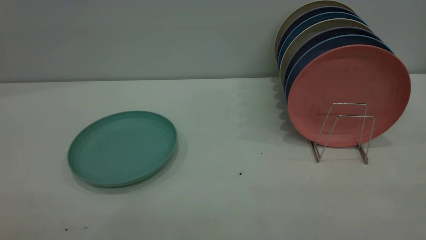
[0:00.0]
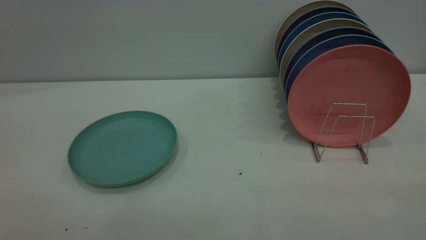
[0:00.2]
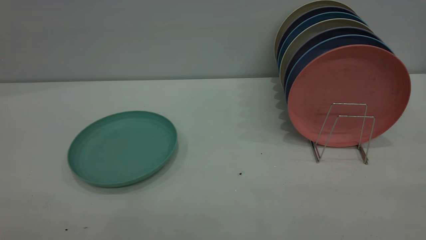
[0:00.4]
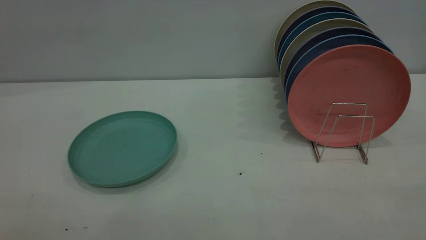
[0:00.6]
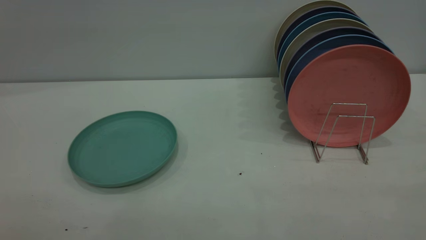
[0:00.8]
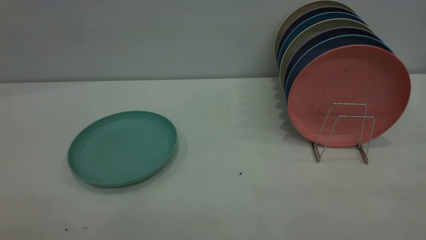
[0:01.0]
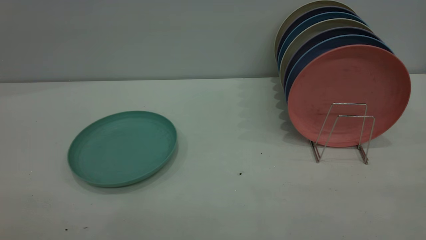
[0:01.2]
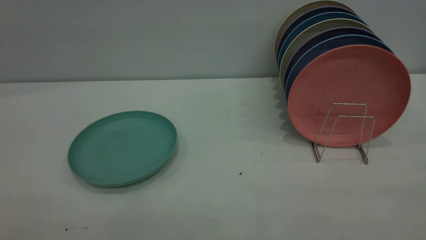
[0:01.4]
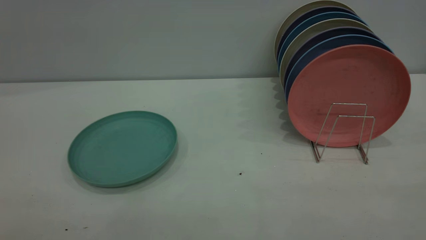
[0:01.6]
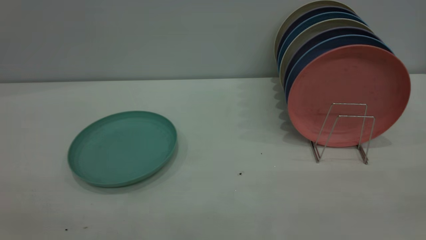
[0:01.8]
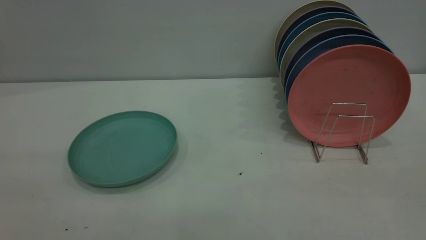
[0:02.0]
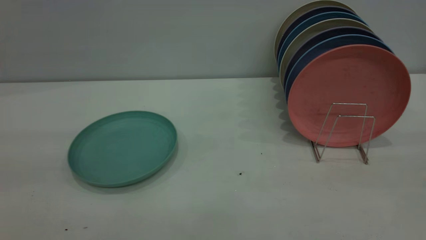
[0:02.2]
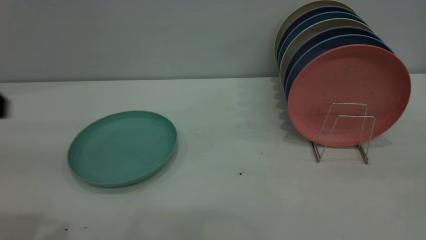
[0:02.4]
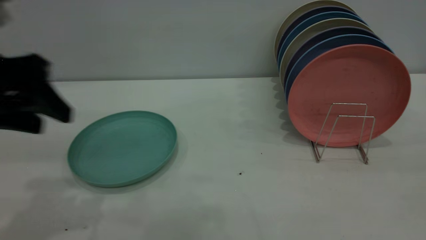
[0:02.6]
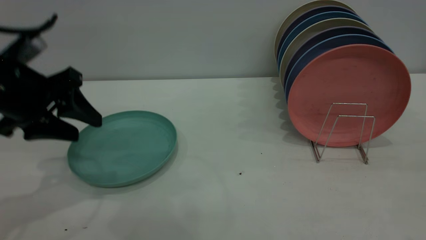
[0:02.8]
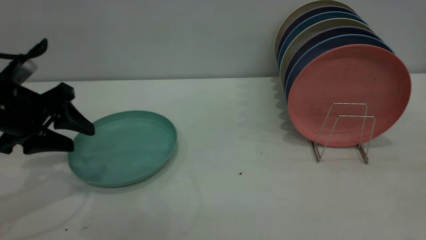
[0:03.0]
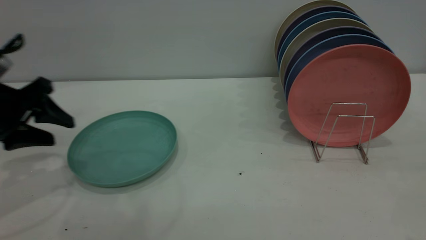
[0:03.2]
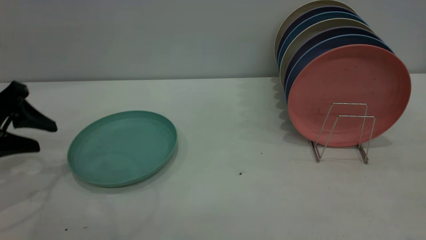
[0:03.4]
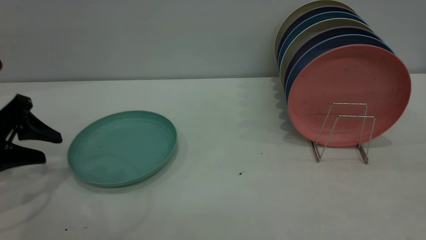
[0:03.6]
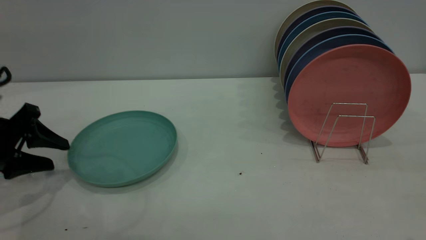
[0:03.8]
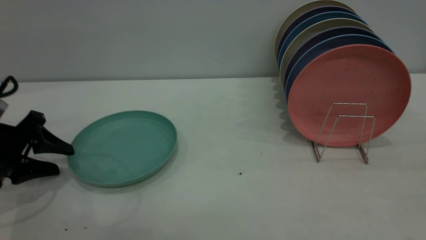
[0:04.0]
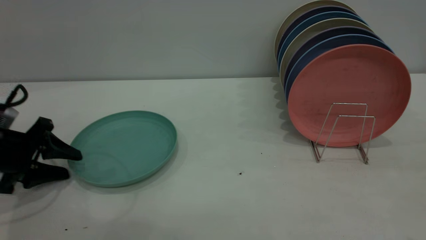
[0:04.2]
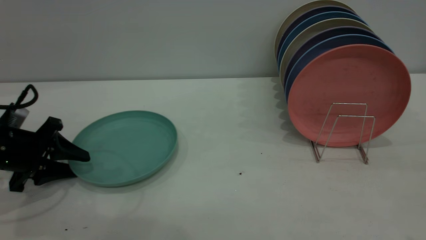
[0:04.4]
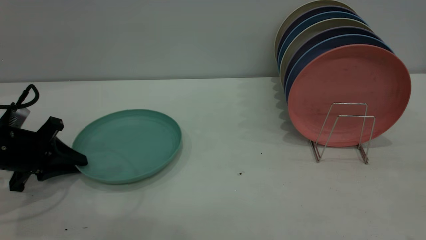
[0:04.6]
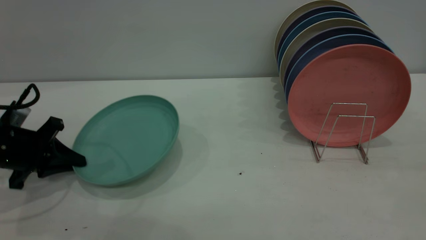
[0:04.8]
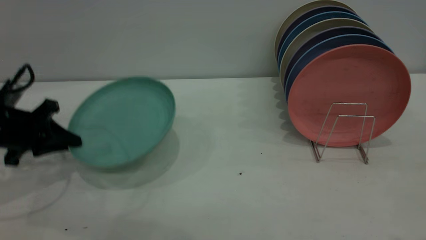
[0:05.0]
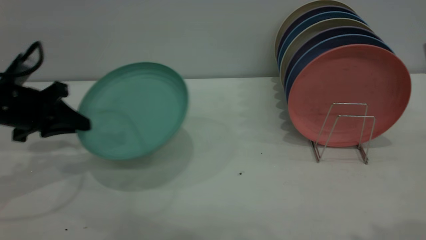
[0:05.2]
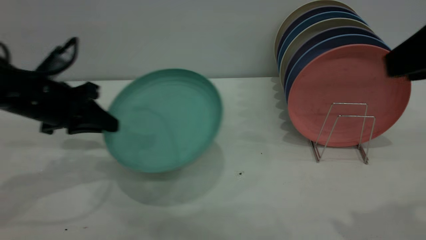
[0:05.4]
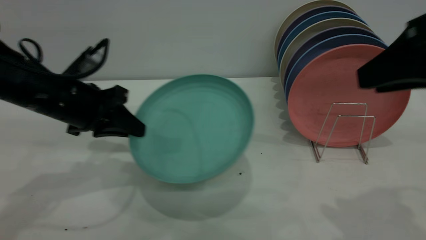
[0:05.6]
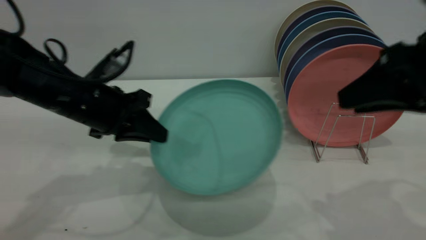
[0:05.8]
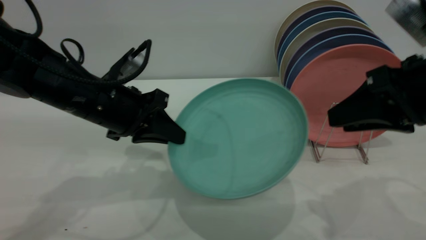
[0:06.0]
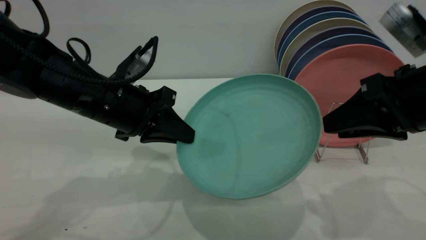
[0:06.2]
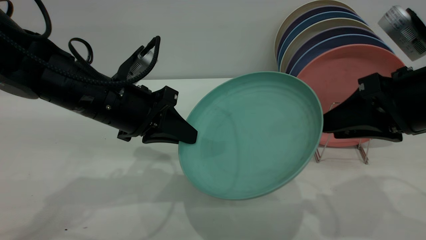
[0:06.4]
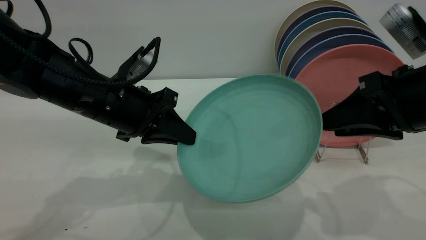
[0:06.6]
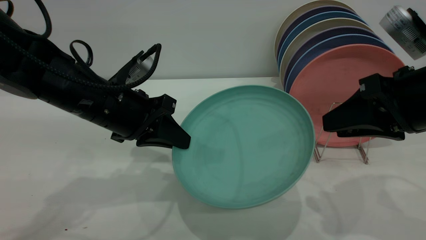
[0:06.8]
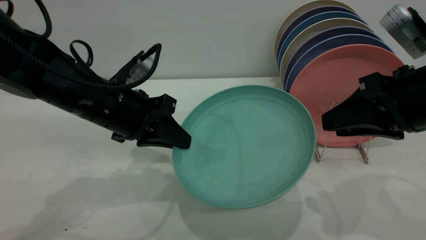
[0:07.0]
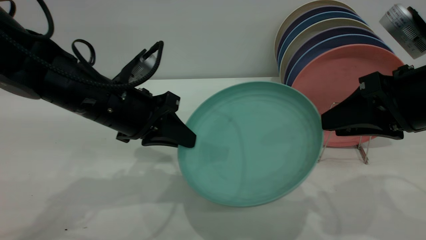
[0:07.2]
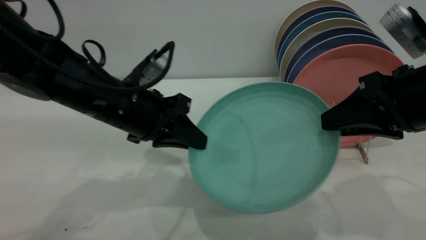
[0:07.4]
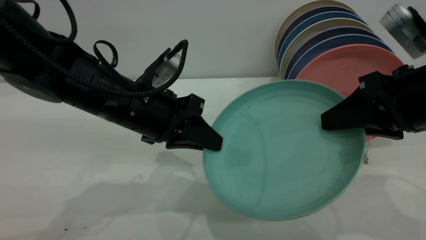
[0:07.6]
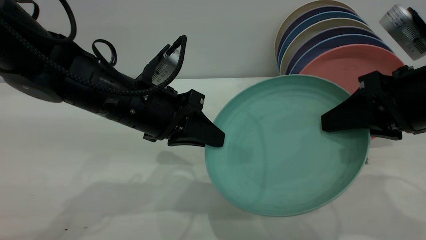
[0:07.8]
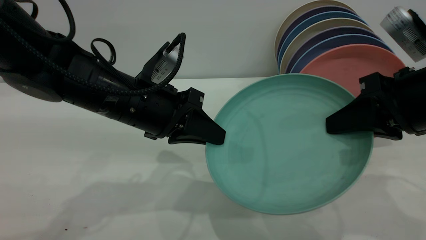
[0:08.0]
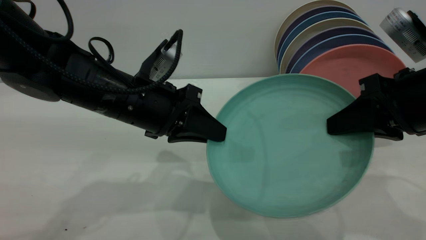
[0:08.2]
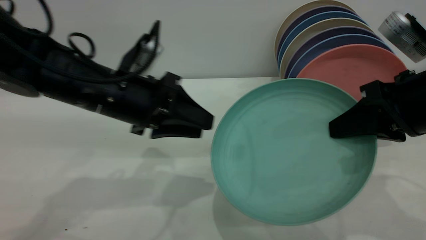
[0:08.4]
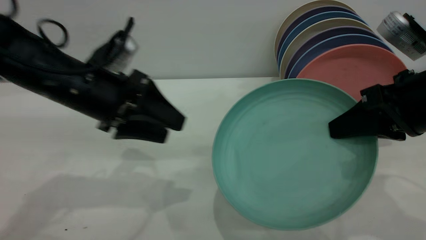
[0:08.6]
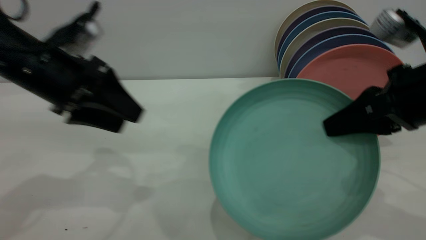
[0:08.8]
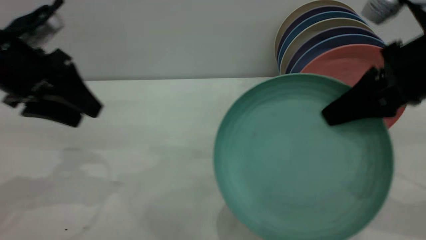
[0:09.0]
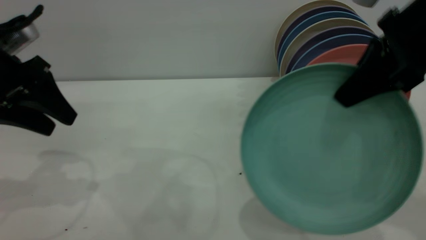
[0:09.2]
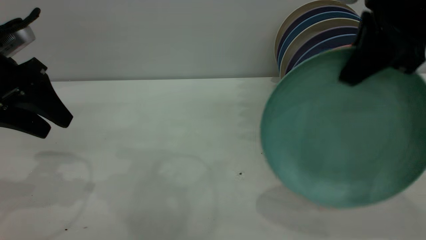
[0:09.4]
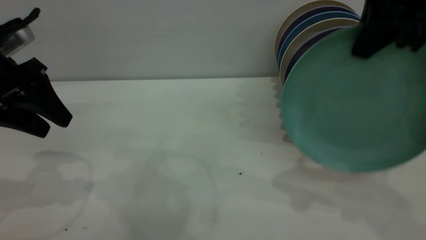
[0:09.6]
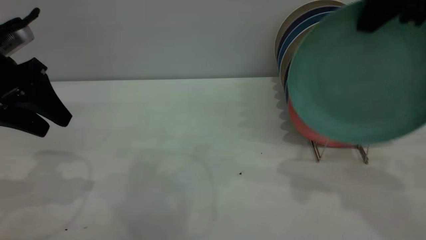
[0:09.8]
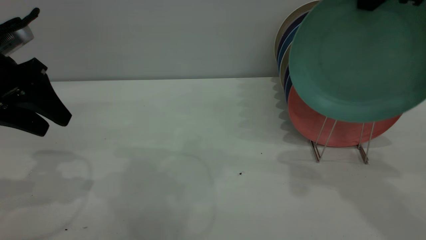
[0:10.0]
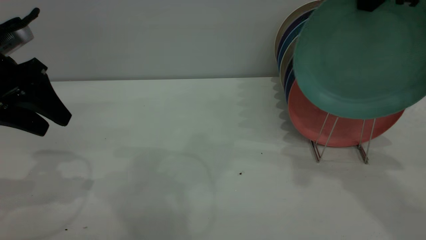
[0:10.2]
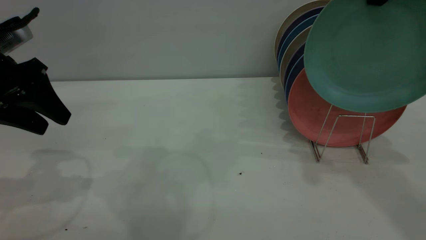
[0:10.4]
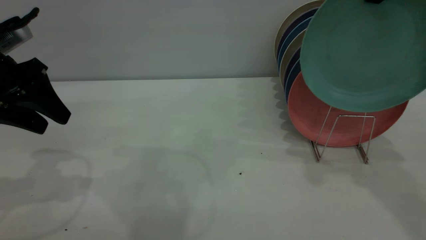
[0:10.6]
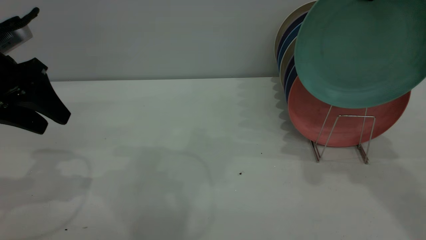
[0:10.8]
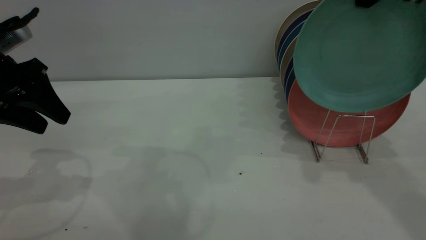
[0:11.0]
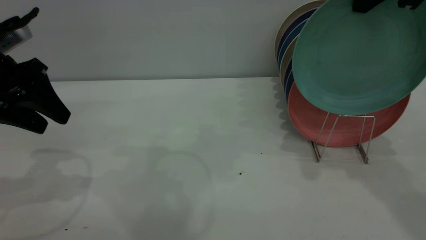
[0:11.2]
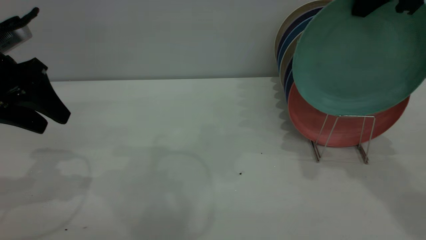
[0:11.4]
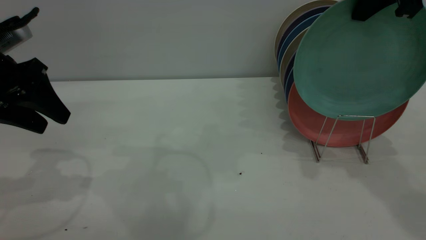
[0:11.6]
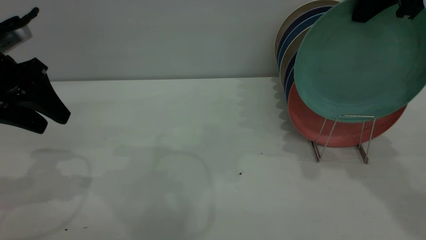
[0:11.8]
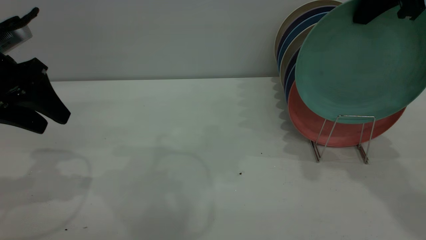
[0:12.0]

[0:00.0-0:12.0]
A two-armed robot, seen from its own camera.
Task of the whole recording: the left gripper grasp the green plate, the left gripper pass the green plate to the right gripper, and the right gripper place the green plate on the plate rack.
Step, 0:00.0 to 0:05.0: Pick up the plate with the left gripper.
Step, 0:05.2 to 0:08.4: Pass the plate from the left gripper to the right gripper.
0:00.0 to 0:01.6: Neither gripper changes place.
0:01.6 to 0:03.0: The left gripper heads forward and downward, covering roughly 40 cm.
0:03.0 to 0:04.4: The left gripper heads downward, covering some 10 cm.
0:04.4 to 0:06.0: The left gripper travels to the right and upward by some 20 cm, and closes its fingers; the right gripper is displaced downward and forward by about 20 cm.
0:06.0 to 0:07.6: The left gripper changes place by roughly 5 cm.
0:07.6 to 0:09.0: The left gripper travels to the left and upward by about 15 cm, and opens its fingers. Meanwhile the right gripper closes.
0:09.0 to 0:10.4: The right gripper shifts roughly 15 cm upward and forward.
0:10.4 to 0:12.0: The grippers move only a little.

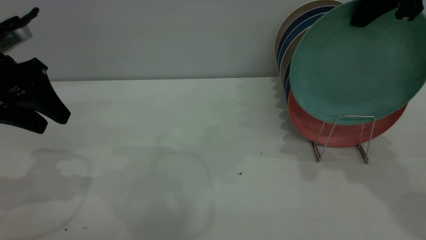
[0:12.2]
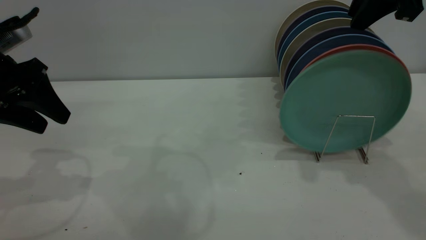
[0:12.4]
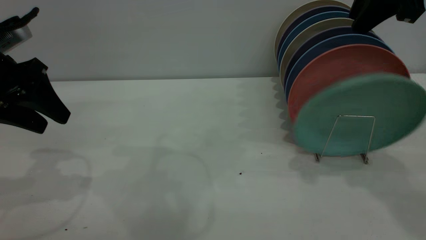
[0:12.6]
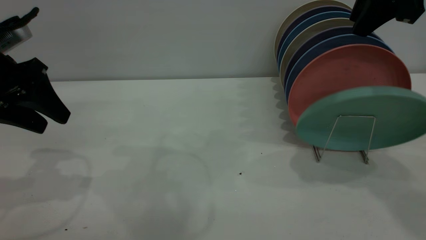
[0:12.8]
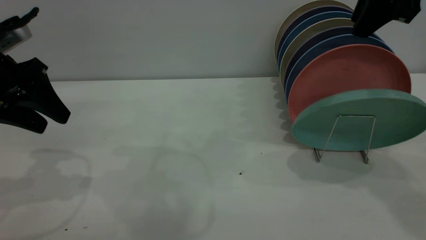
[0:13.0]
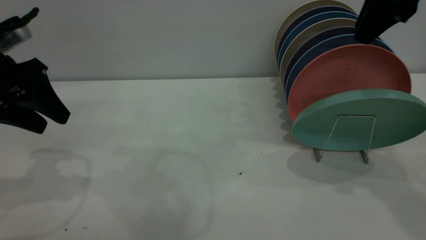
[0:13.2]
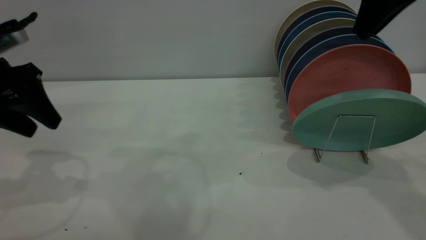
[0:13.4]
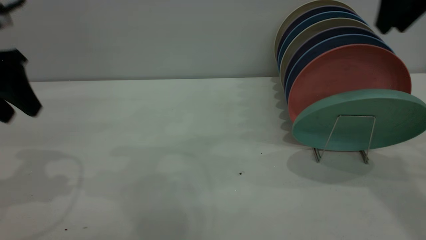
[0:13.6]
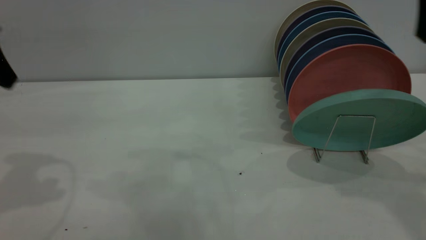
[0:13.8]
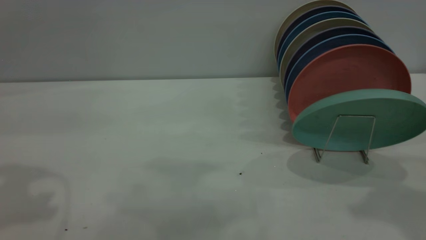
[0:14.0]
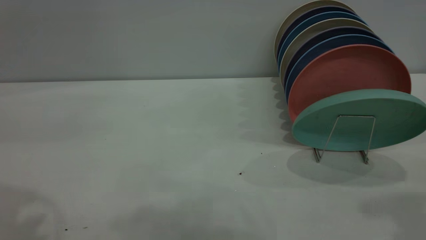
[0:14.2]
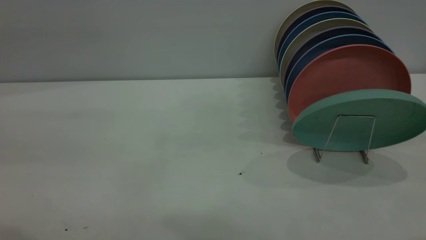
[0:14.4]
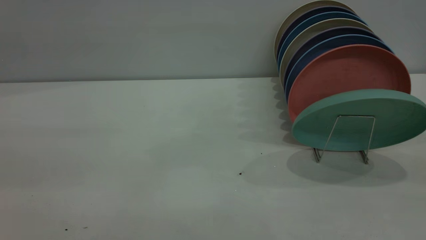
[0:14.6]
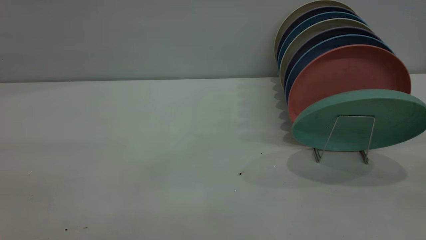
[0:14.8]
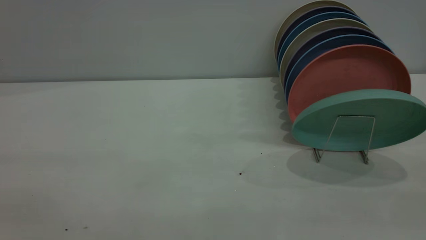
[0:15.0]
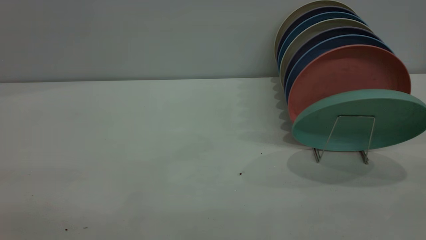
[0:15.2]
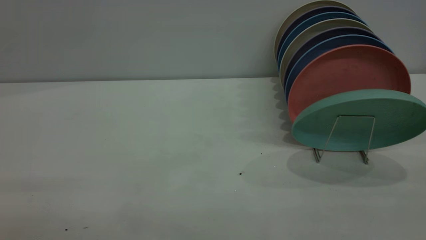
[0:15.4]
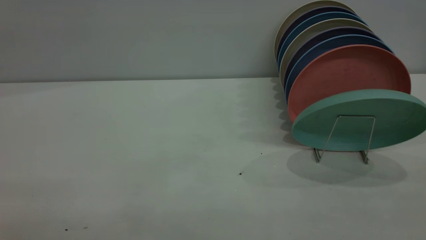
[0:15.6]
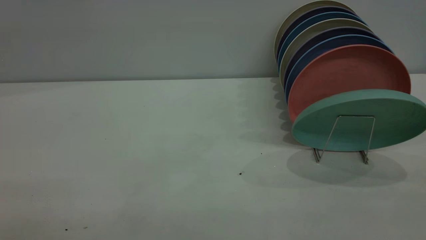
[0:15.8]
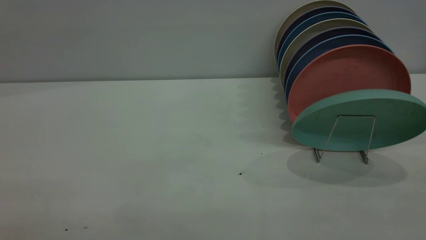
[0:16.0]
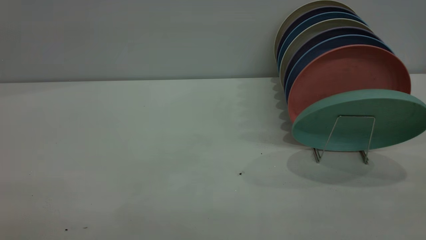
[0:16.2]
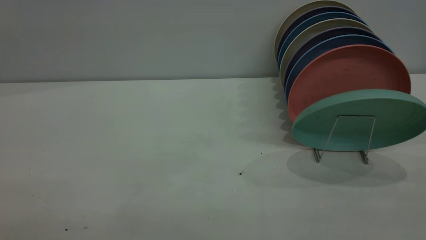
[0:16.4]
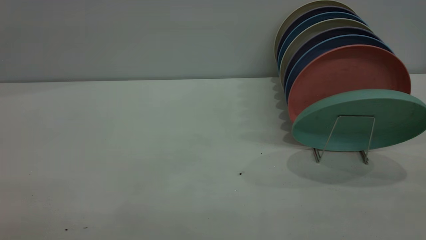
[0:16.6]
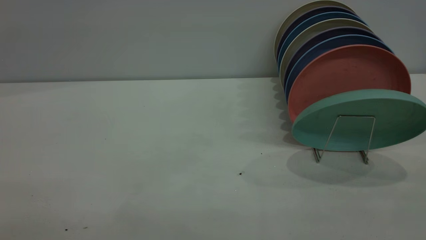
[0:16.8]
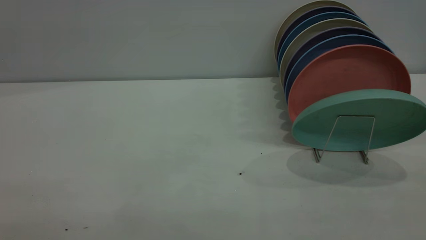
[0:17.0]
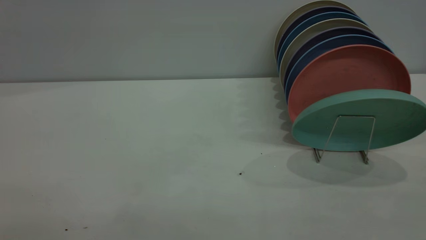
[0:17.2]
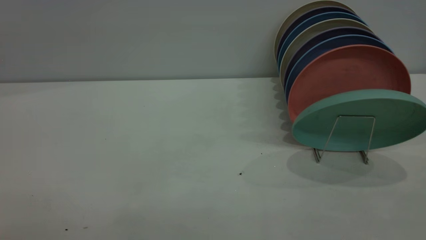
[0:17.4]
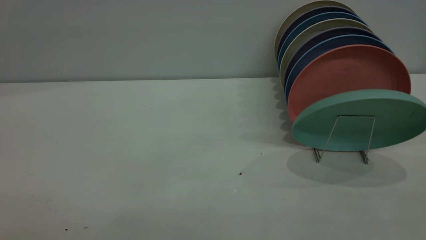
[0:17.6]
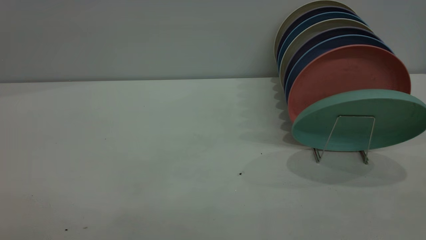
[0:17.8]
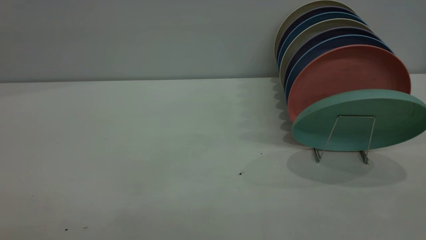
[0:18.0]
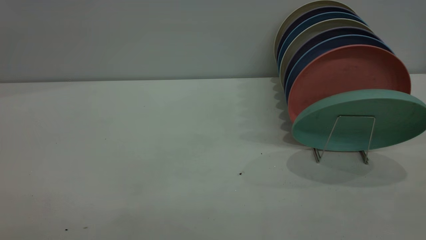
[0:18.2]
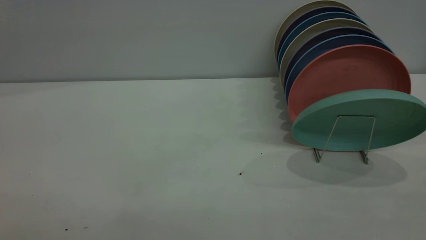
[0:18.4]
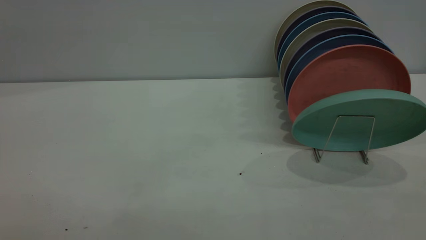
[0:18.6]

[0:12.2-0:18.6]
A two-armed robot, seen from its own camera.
Task of the whole recording: the left gripper grasp the green plate, the left gripper pass the green plate to the right gripper, and the right gripper place the green plate on the plate rack.
0:12.2 to 0:13.8: The right gripper is displaced backward by about 5 cm; the left gripper is displaced upward by approximately 10 cm.
